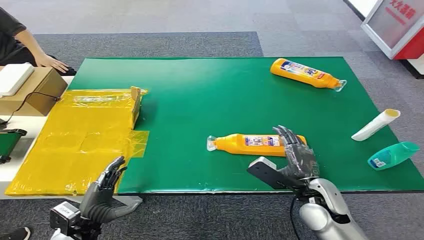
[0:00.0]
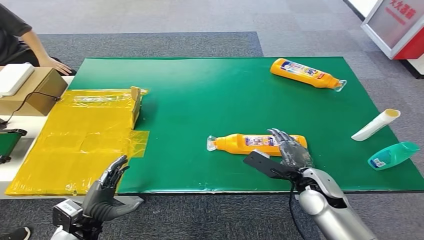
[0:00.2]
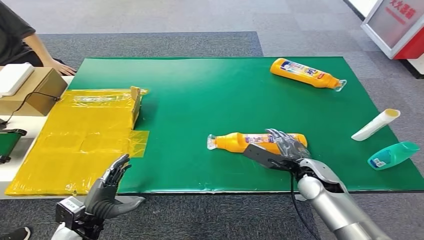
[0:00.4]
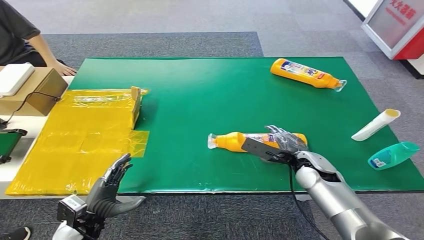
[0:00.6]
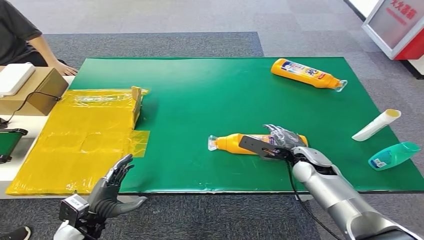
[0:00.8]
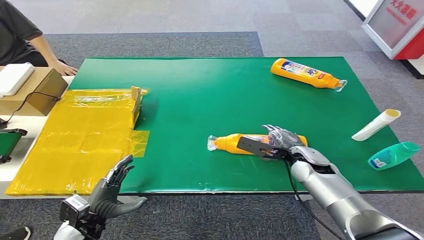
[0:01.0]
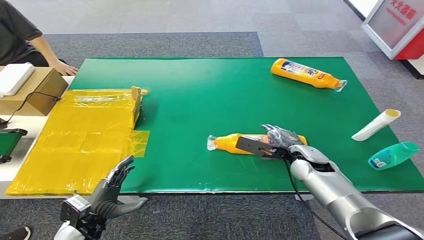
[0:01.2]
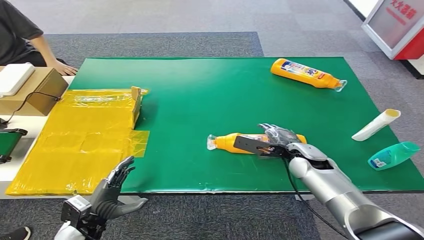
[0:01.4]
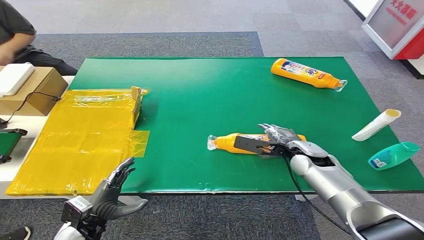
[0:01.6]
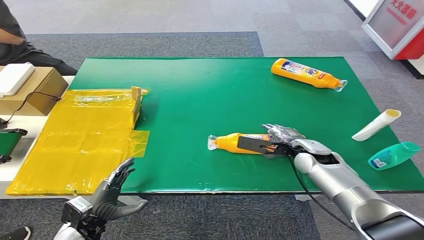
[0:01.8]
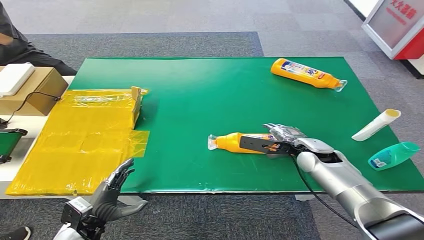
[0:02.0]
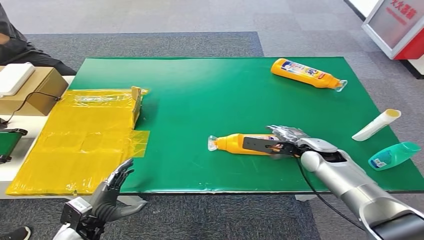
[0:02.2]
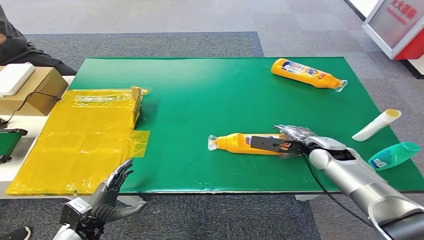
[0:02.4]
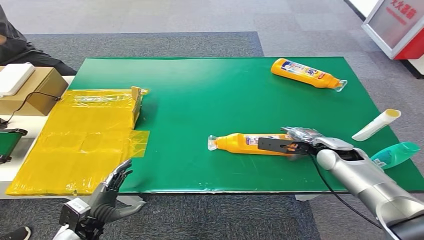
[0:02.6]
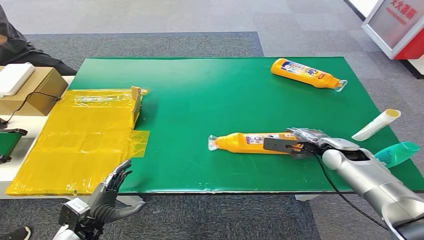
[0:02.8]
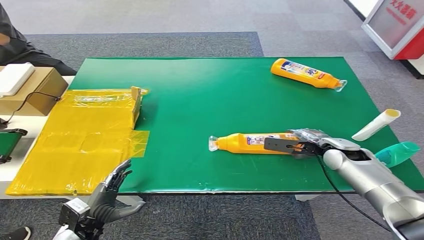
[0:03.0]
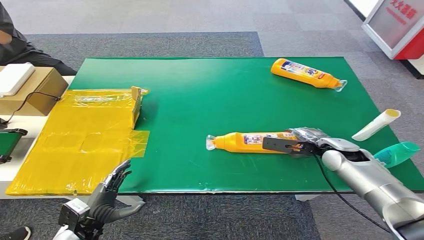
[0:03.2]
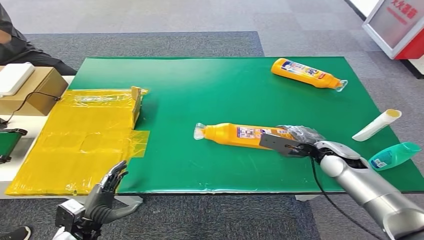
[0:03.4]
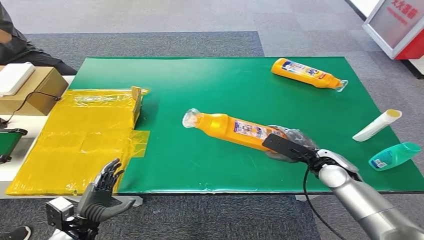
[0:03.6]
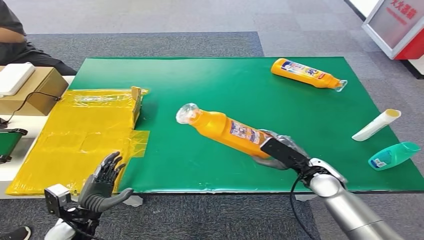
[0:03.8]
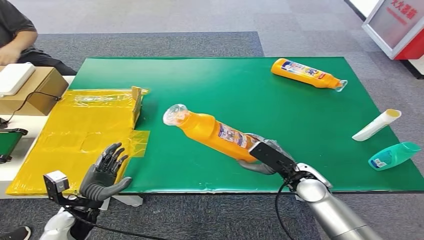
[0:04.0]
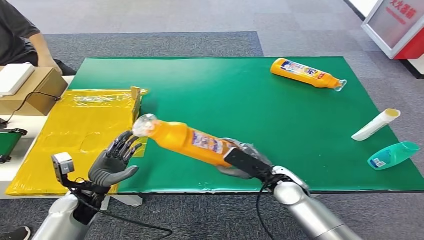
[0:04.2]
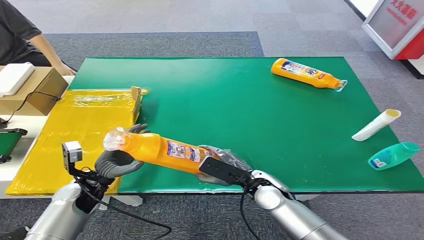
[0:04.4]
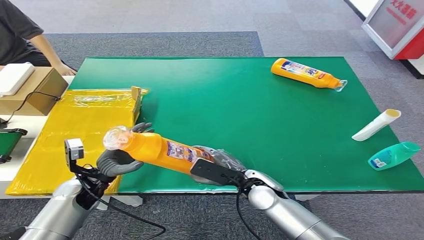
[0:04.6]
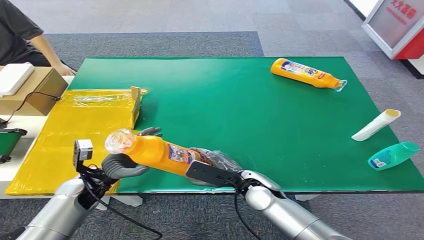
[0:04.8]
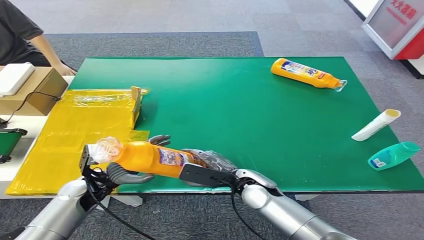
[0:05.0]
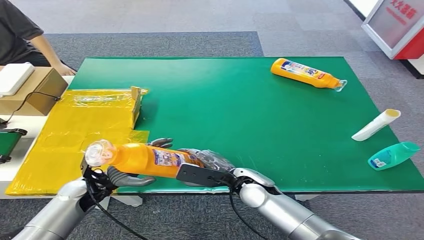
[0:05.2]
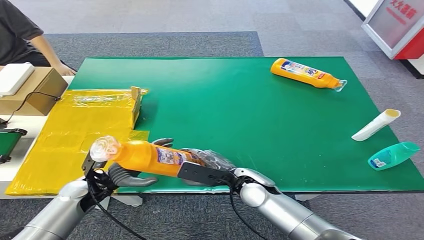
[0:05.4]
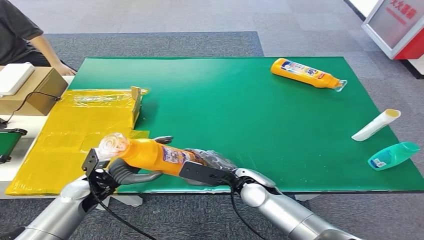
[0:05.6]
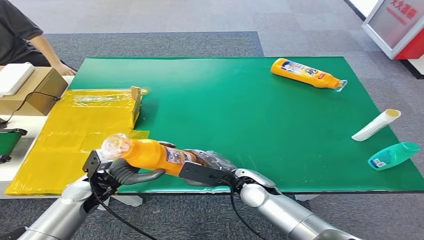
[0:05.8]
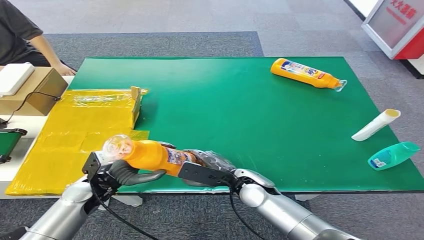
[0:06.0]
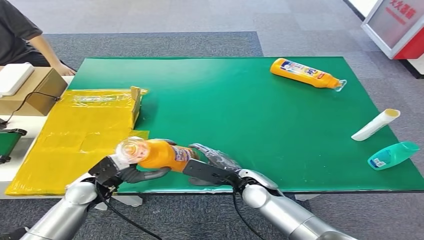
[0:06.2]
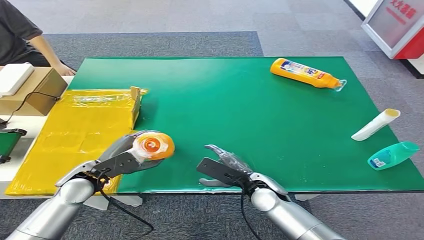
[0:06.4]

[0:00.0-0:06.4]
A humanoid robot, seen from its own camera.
Step, 0:00.0 to 0:03.8: Pick up the bottle from the table.
Step, 0:04.0 to 0:06.4: Turn the bottle to the front side.
0:01.6 to 0:03.2: The right hand moves to the right, some 10 cm.
0:04.8 to 0:06.4: The left hand heads upward, covering roughly 5 cm.

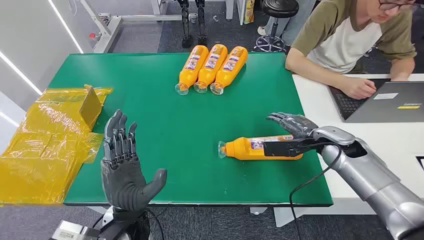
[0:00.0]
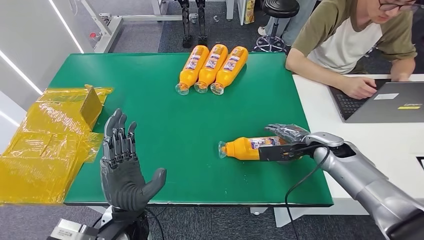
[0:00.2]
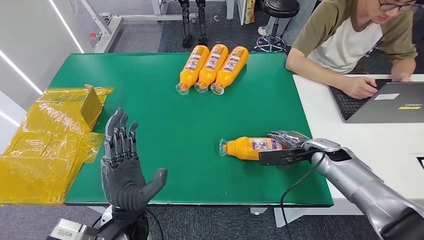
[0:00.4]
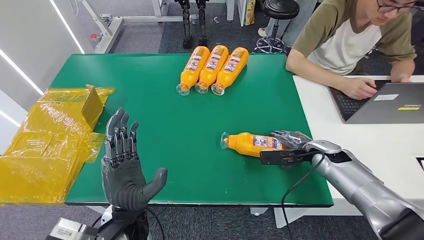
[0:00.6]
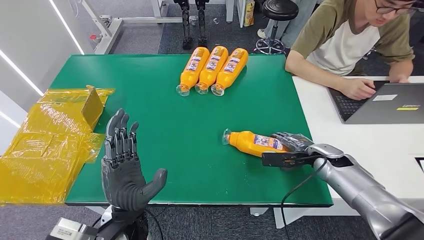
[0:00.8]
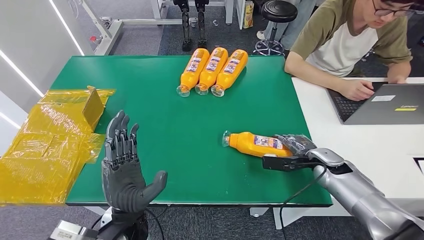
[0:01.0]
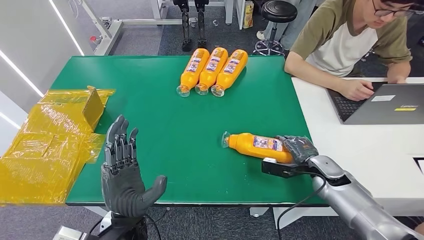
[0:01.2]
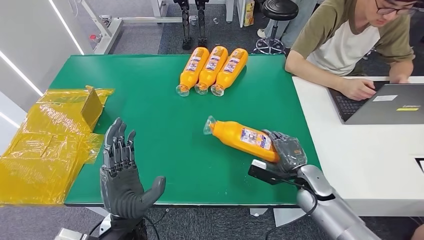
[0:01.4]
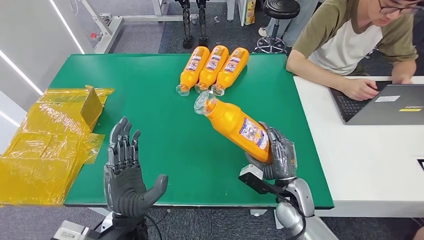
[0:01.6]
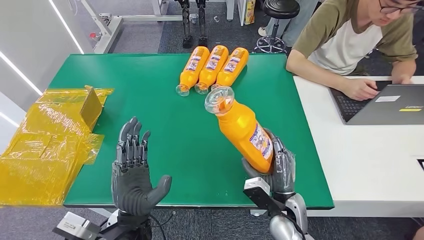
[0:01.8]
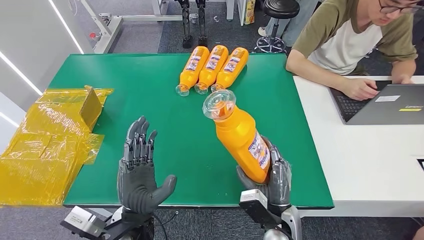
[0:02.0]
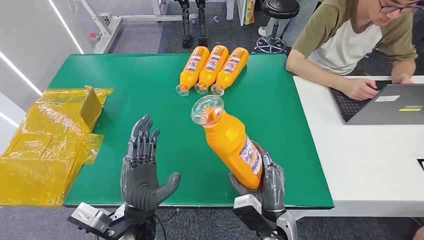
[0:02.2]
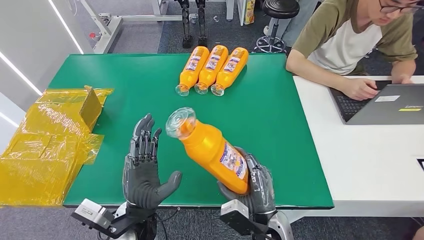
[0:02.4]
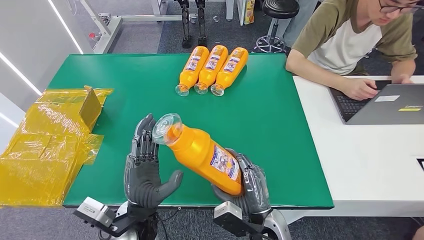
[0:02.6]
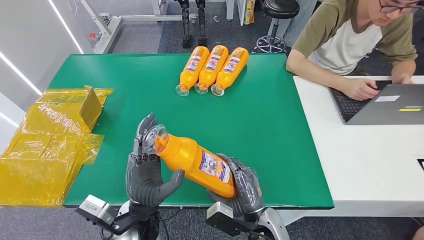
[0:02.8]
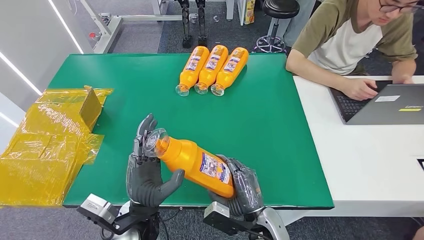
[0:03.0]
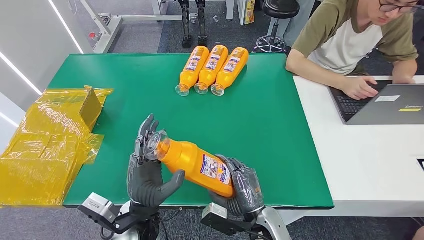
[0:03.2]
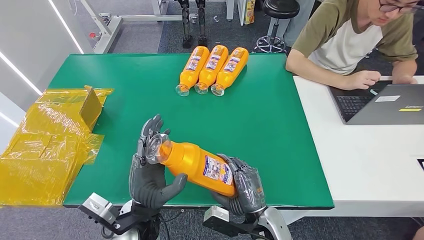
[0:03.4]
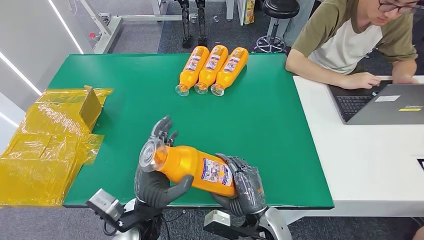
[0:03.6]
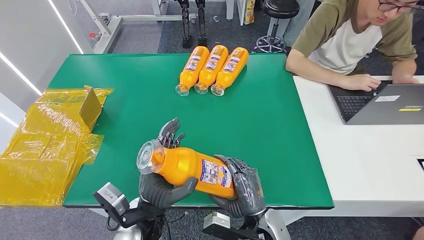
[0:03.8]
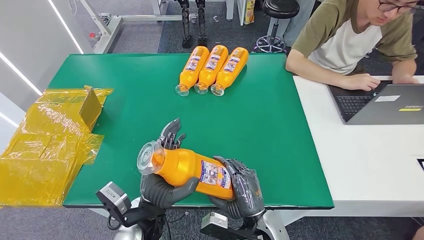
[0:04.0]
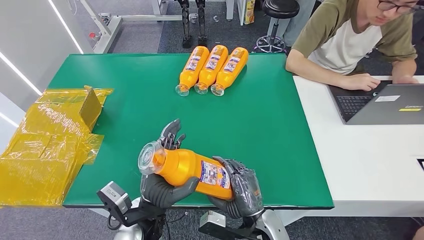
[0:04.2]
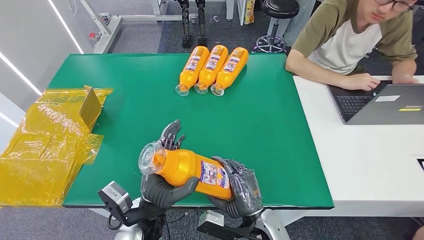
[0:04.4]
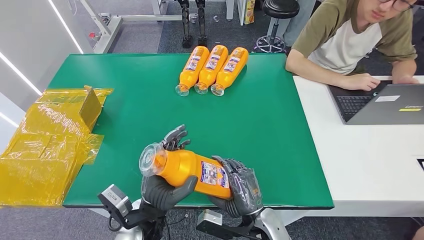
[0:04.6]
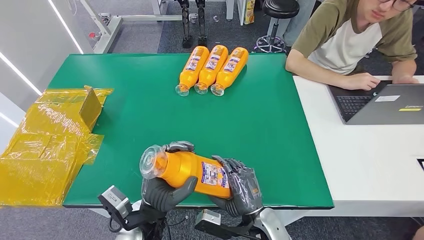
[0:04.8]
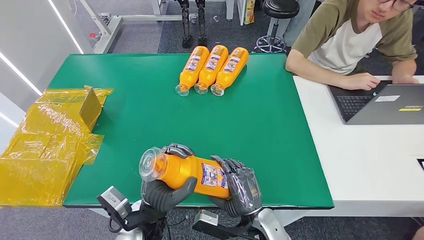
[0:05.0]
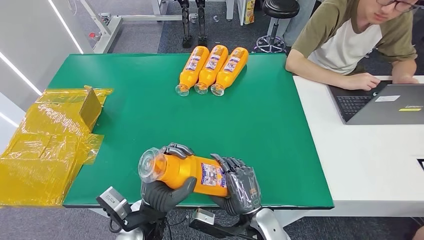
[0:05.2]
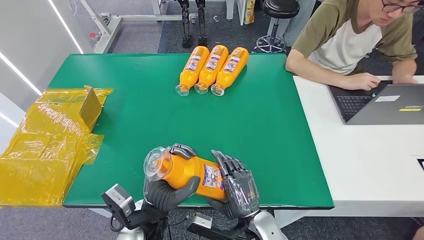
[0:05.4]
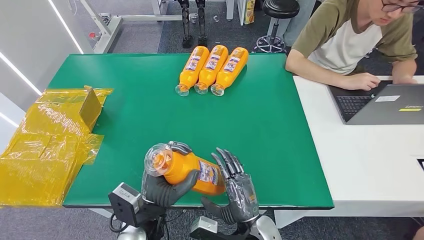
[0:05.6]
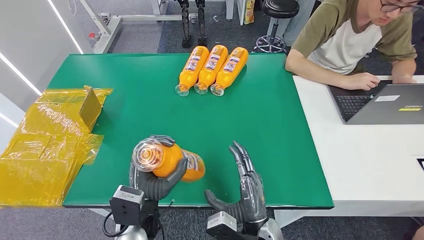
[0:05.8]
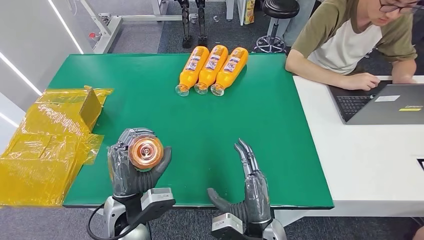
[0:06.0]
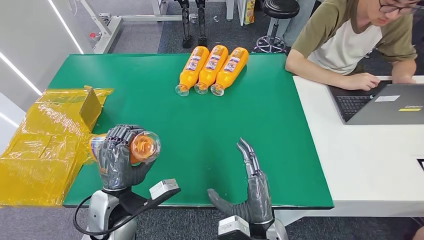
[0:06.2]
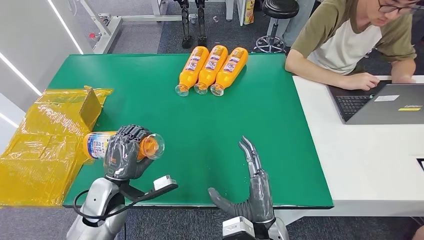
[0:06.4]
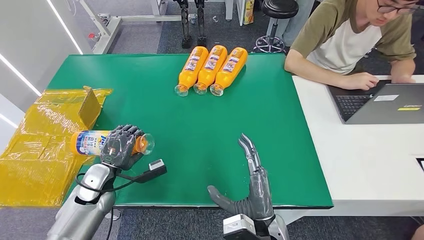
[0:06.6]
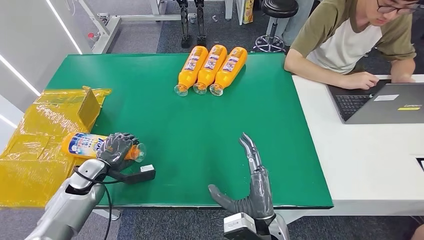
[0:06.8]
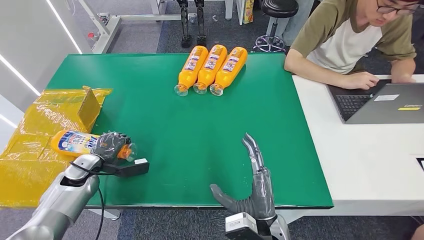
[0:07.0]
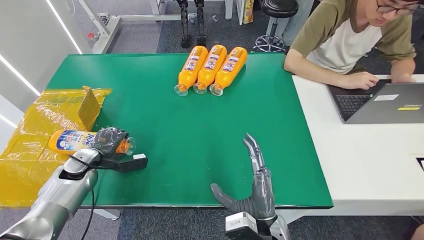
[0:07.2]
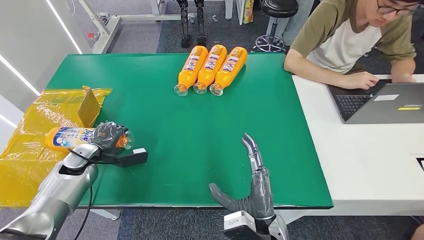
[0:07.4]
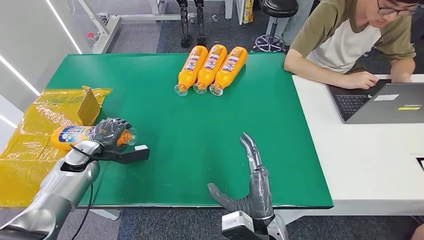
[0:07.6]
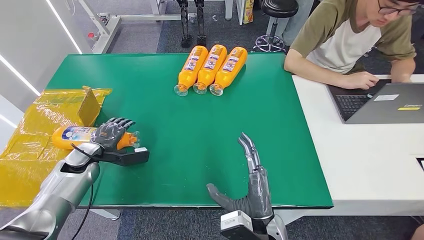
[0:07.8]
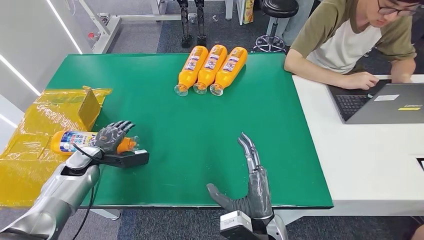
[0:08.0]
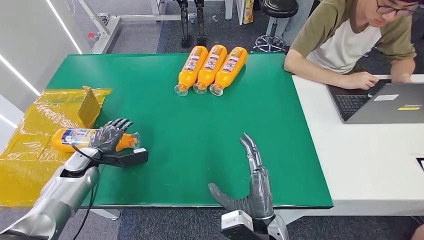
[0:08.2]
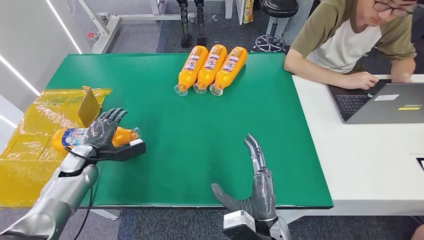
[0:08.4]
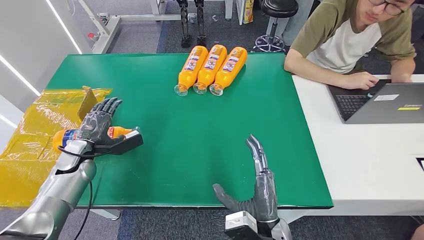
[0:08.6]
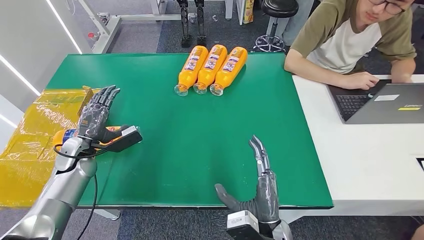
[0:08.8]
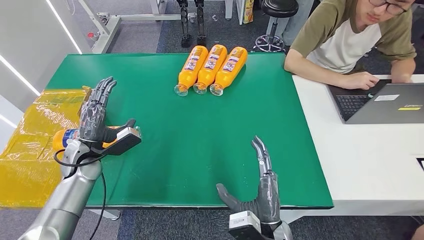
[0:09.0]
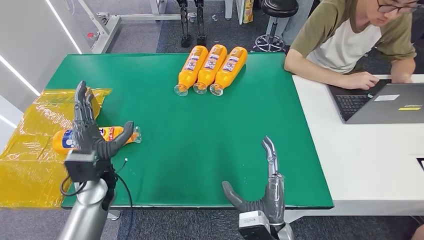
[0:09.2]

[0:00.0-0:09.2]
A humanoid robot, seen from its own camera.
Step, 0:00.0 to 0:02.4: Pick up the bottle from the table.
Step, 0:02.6 to 0:09.2: Turn the bottle to the front side.
0:01.6 to 0:03.0: The right hand moves to the left and backward, about 15 cm.
0:03.0 to 0:04.6: The hands make only small movements.
0:04.6 to 0:06.2: The left hand shifts approximately 5 cm to the left.
0:06.2 to 0:07.6: The left hand shifts some 25 cm to the left and forward.
0:07.6 to 0:09.2: The left hand goes roughly 10 cm to the right.

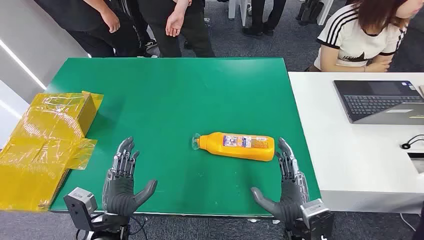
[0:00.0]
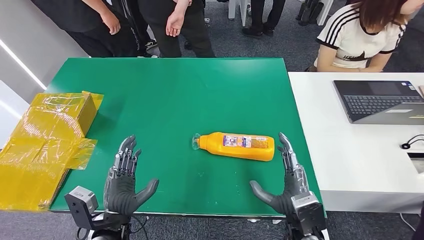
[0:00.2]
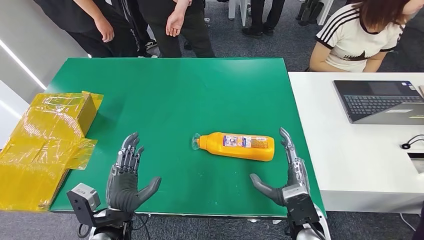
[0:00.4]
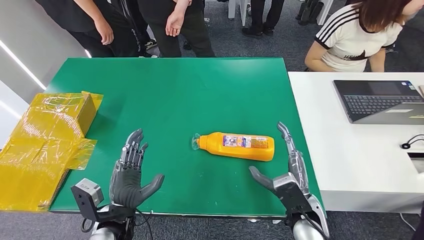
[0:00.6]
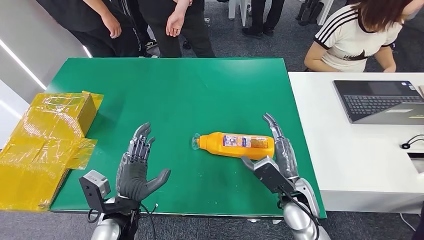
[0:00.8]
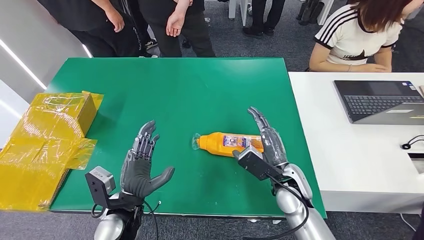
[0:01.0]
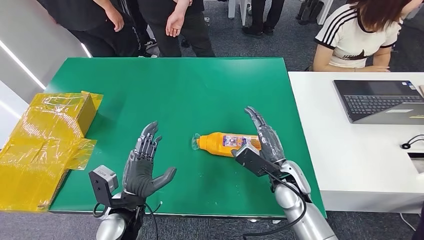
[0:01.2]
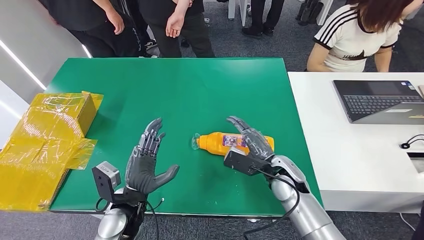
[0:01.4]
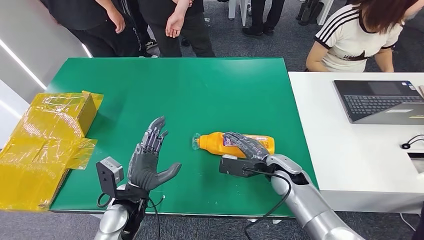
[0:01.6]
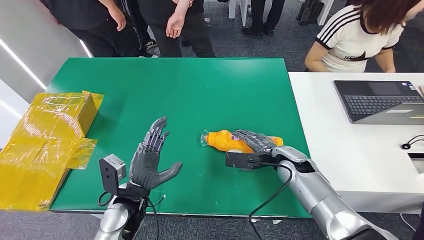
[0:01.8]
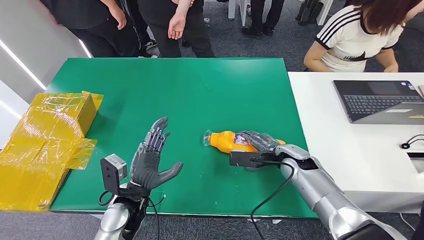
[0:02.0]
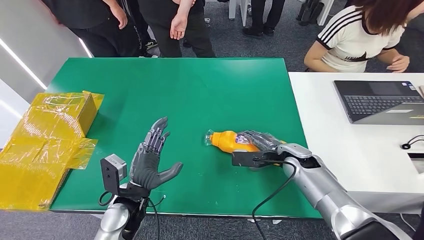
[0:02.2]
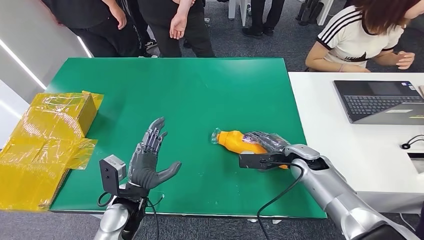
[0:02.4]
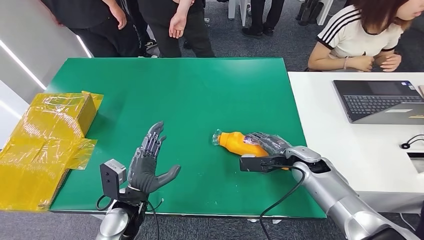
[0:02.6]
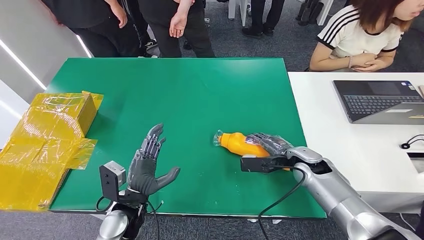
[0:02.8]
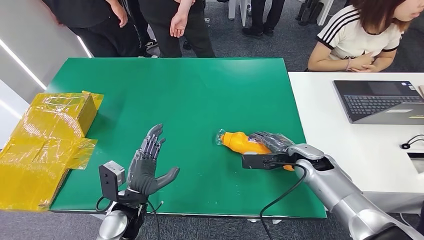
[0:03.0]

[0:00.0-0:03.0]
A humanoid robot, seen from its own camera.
0:01.6 to 0:03.0: The right hand heads to the right, covering some 10 cm.